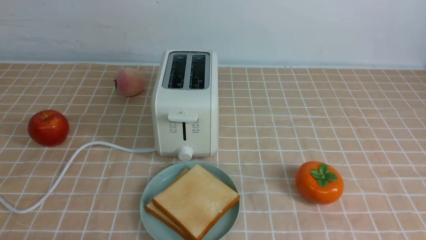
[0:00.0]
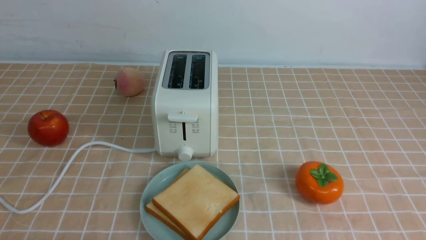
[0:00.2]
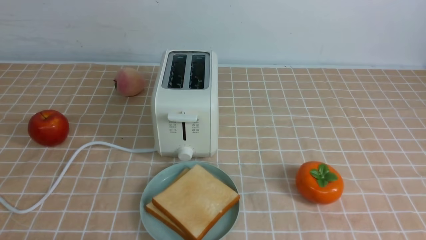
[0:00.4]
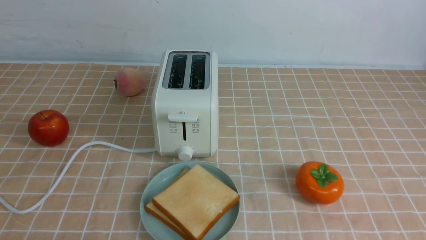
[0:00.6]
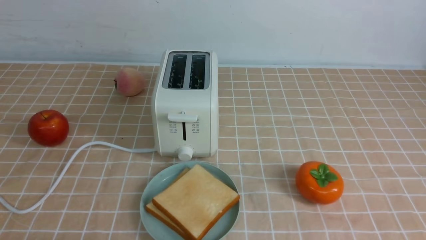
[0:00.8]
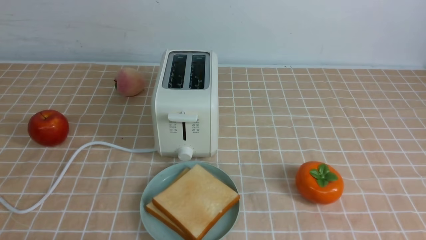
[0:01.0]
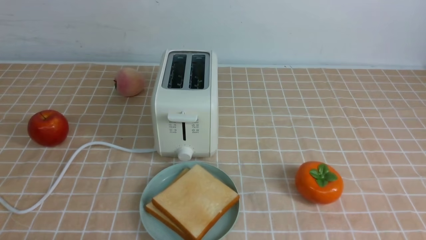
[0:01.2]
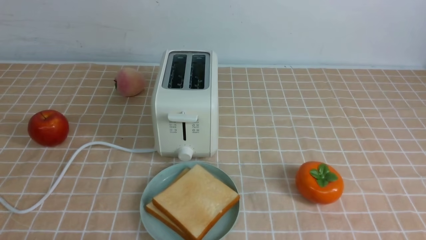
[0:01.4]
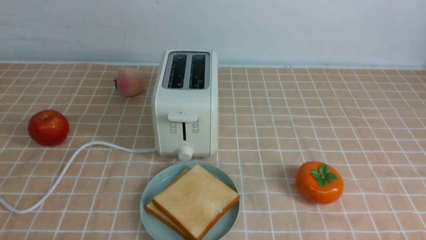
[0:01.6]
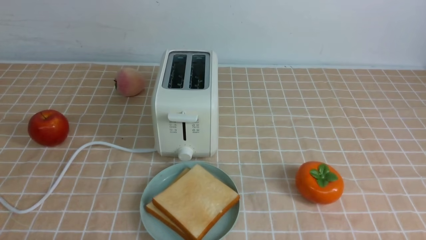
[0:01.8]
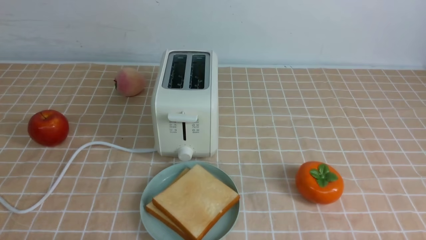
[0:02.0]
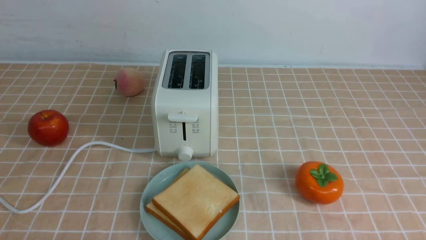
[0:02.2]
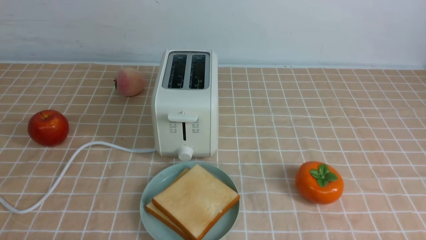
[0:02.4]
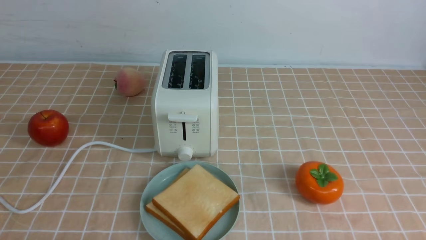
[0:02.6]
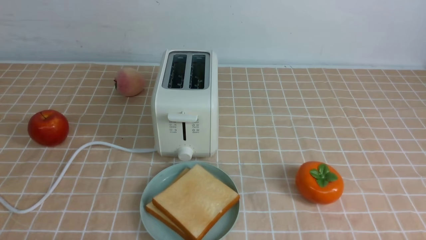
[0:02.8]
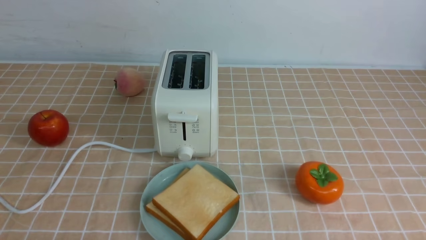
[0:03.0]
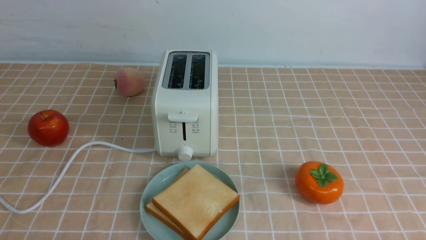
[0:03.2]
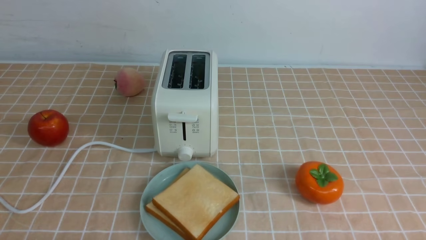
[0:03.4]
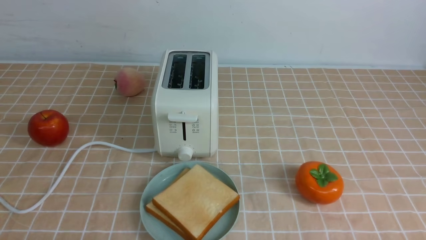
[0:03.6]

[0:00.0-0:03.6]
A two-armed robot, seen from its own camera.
Task of the whole recording: take toasted bread from bread machine on light coffee tablecloth place on plate.
0:01.8 to 0:03.6: Both grippers stay put.

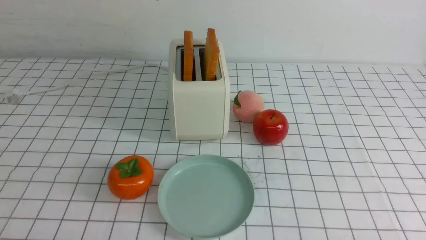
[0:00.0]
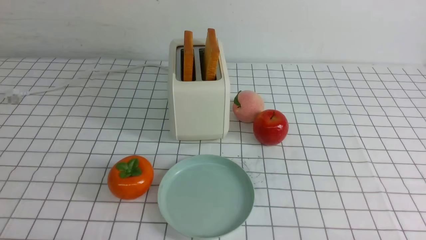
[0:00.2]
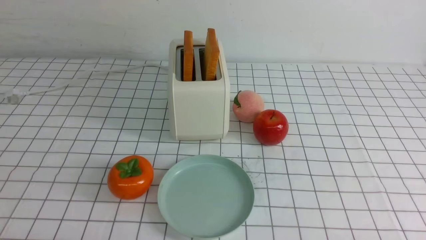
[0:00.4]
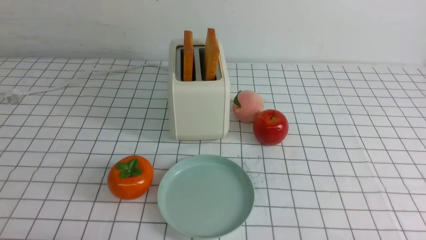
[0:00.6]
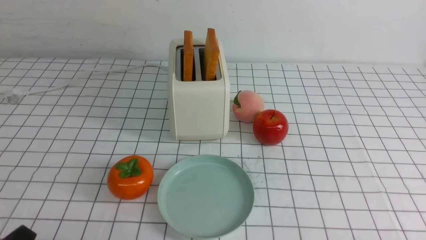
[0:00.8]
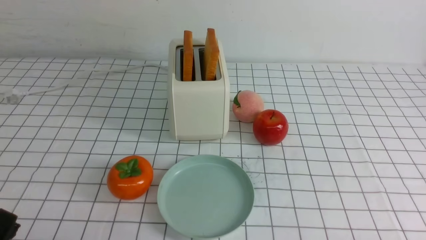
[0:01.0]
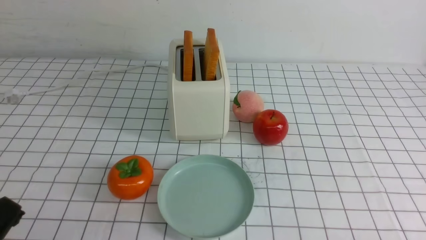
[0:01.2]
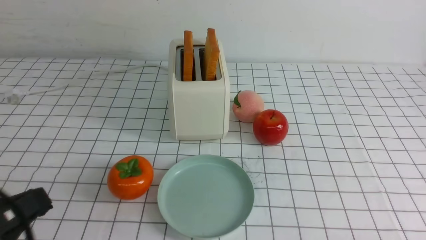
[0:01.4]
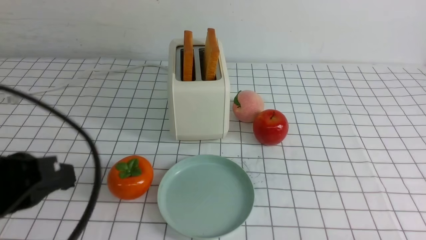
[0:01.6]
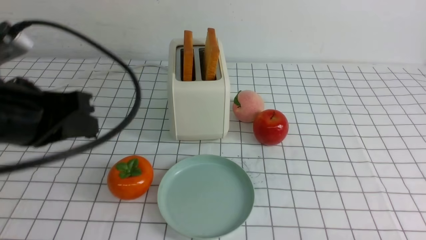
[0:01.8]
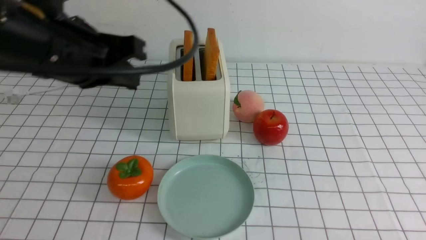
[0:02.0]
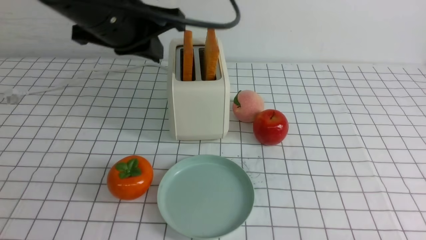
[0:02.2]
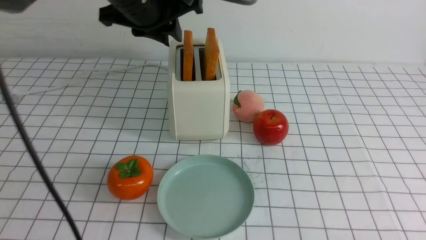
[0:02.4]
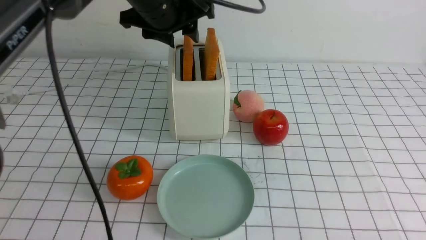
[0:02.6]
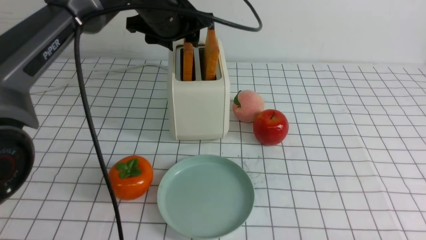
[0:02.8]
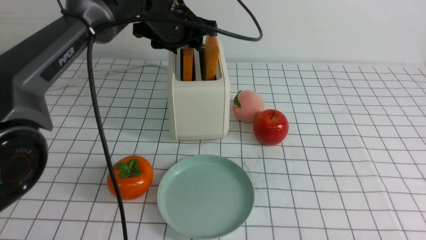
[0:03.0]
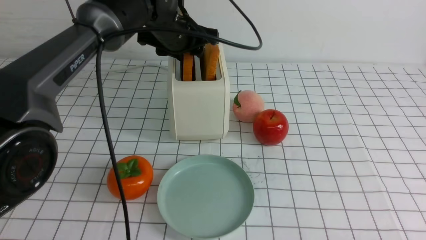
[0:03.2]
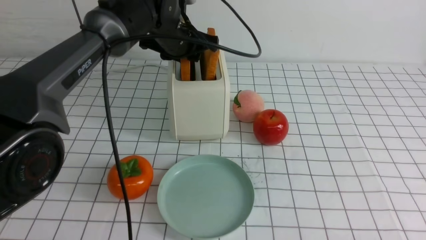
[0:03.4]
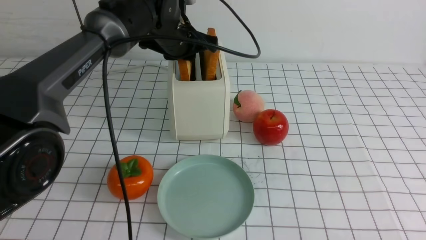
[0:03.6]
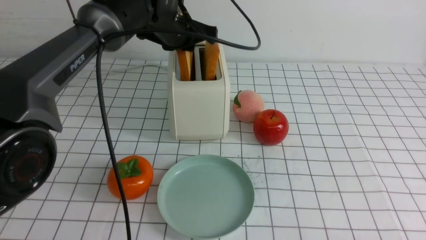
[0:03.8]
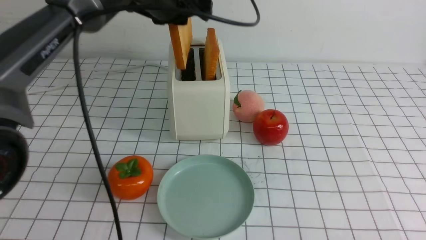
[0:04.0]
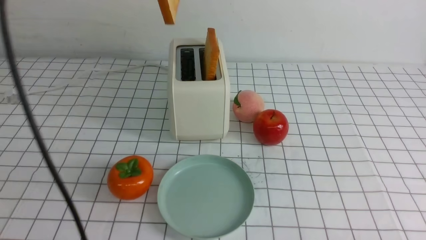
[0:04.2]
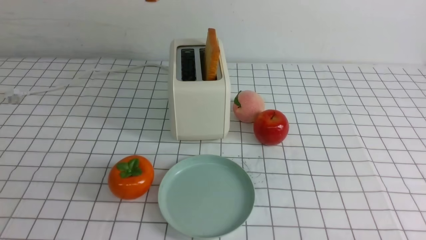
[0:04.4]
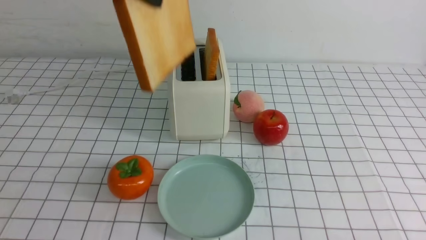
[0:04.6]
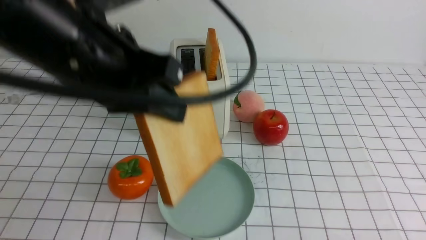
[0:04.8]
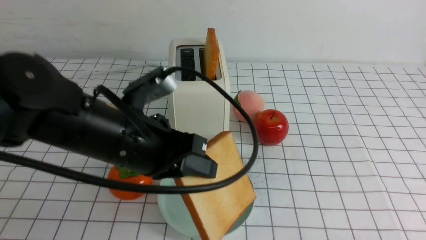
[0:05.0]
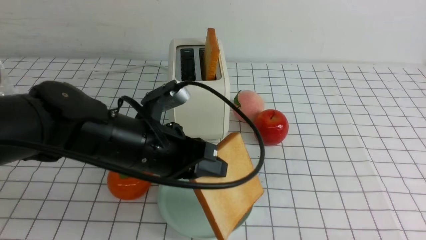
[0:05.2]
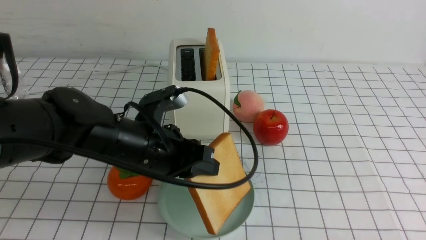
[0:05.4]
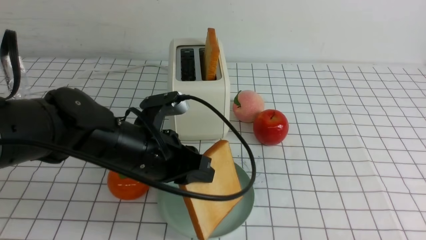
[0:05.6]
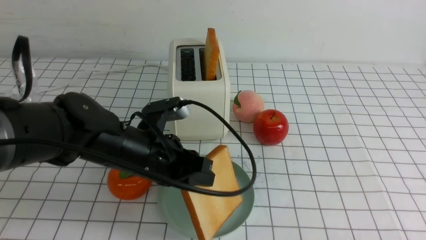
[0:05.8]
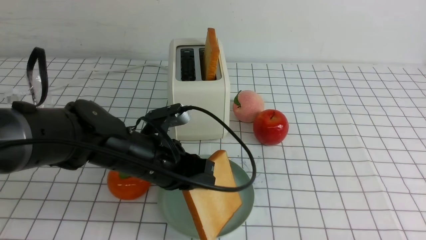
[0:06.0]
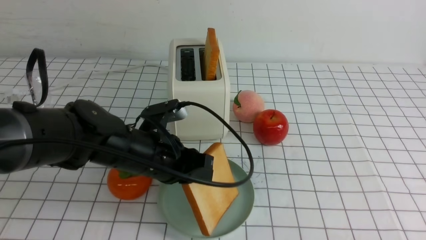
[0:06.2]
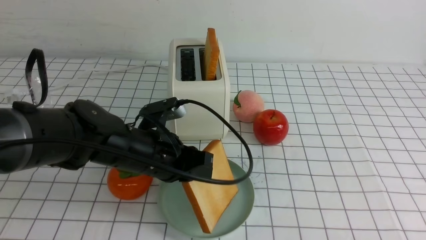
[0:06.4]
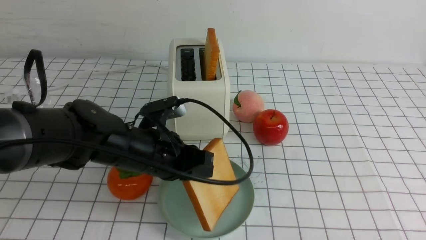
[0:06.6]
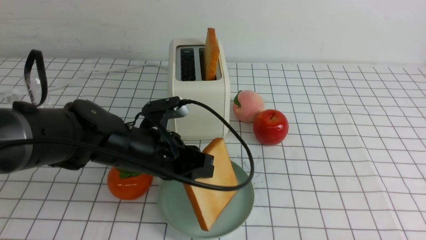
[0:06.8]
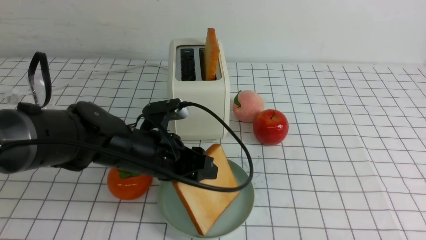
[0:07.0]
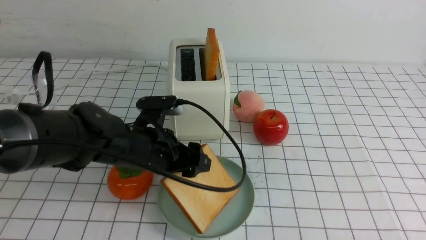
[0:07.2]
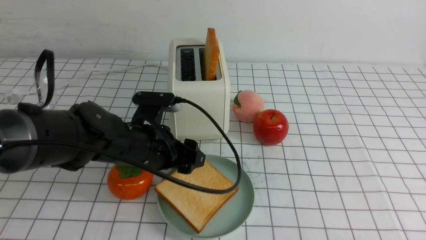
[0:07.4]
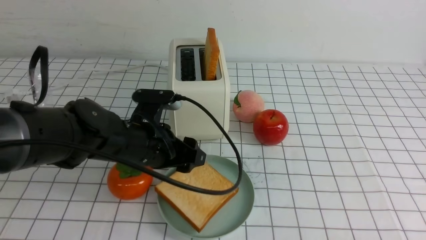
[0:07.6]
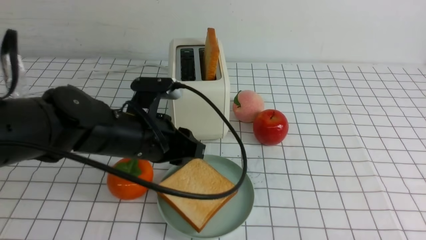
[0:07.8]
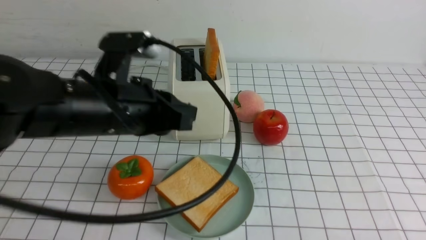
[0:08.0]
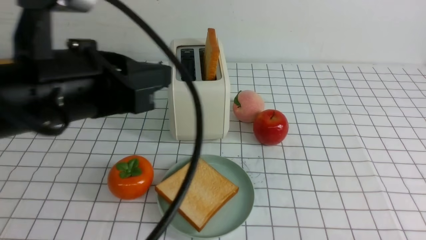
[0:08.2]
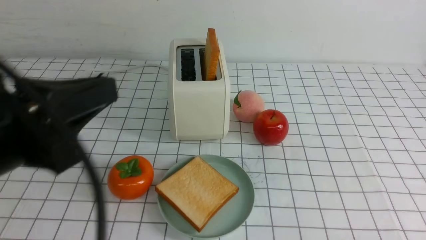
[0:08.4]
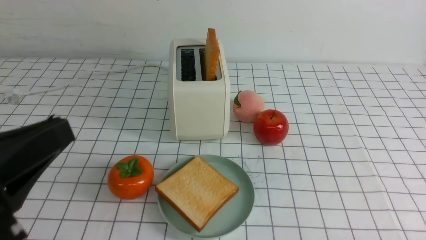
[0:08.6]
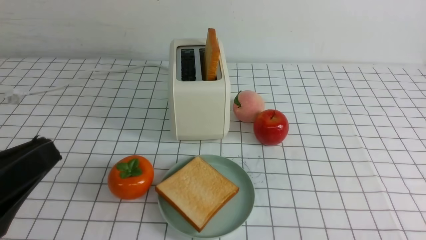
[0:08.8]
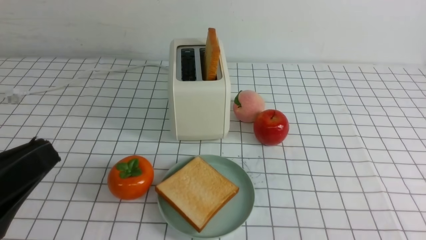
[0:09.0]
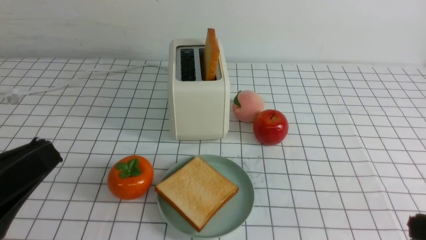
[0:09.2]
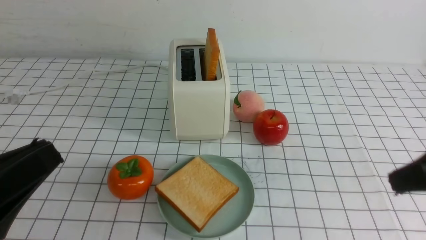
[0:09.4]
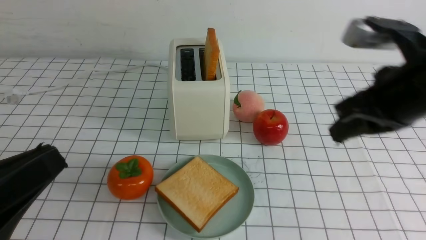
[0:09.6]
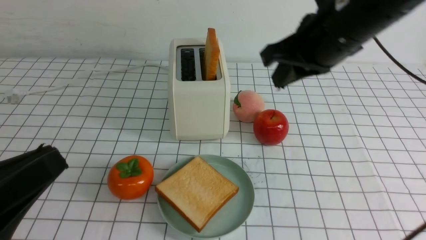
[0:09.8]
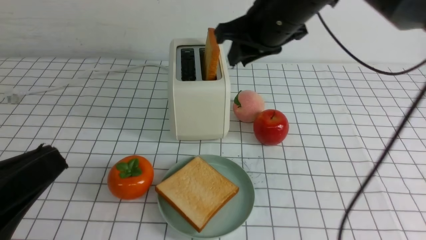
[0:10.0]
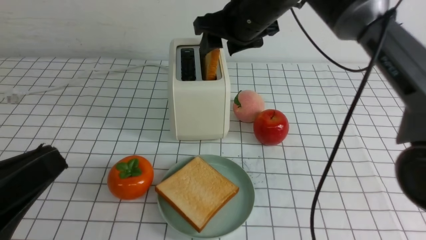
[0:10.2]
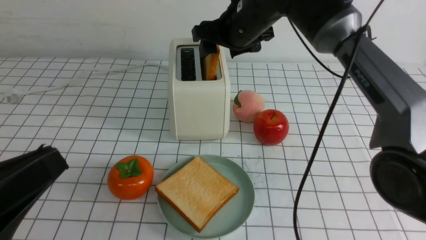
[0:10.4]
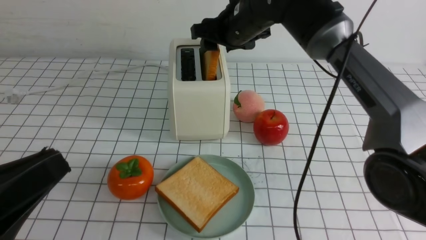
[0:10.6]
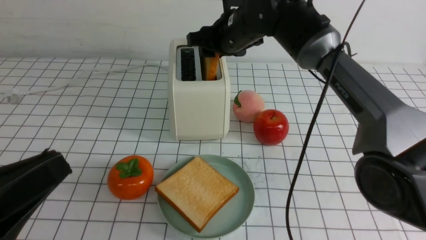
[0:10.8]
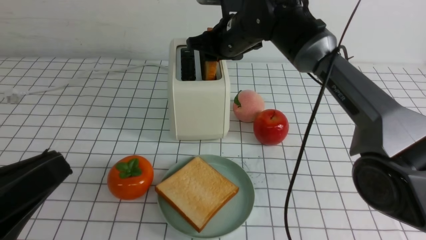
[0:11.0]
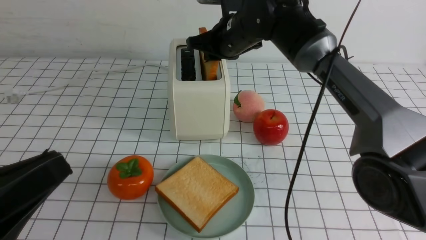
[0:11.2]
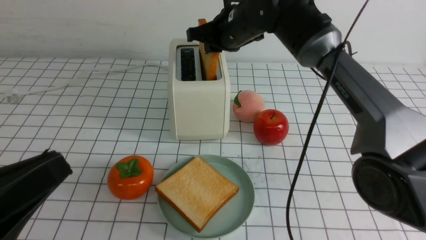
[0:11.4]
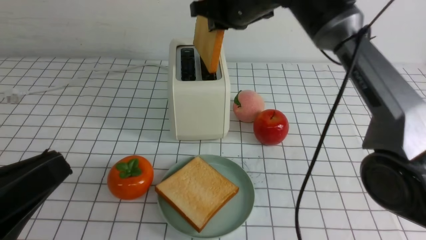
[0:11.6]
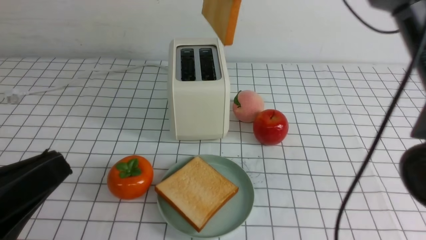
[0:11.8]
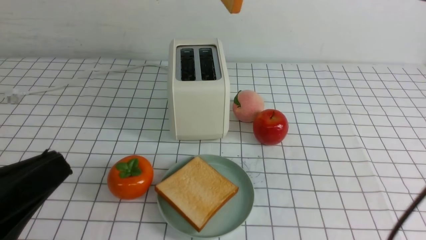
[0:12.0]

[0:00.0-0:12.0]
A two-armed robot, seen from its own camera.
Task of the whole recording: take toasted bread from bread machine on white checkered table place on plate.
Step, 0:00.0 to 0:03.8: use the left arm to take out a slice of bread.
Step, 0:04.0 to 0:07.6: use the left arm to put a slice of bread into the empty plate.
Step, 0:07.8 to 0:11.6: use the right arm to take out a slice of bread.
0:00.0 to 0:01.6: The left gripper moves upward and forward, some 20 cm, and closes.
0:01.6 to 0:03.0: The left gripper moves forward and to the right, roughly 35 cm, and opens.
0:03.0 to 0:04.4: The left gripper is displaced upward and backward by about 20 cm, and closes its fingers.
0:04.4 to 0:06.0: The left gripper goes roughly 30 cm downward.
0:06.0 to 0:07.6: The left gripper opens.
0:07.6 to 0:09.0: The right gripper goes roughly 10 cm upward, while the left gripper moves backward, to the left and upward, roughly 25 cm, and closes.
0:09.0 to 0:10.4: The right gripper shifts about 50 cm forward and to the left, and opens.
0:10.4 to 0:12.0: The right gripper heads upward and backward, covering roughly 20 cm, and closes its fingers.

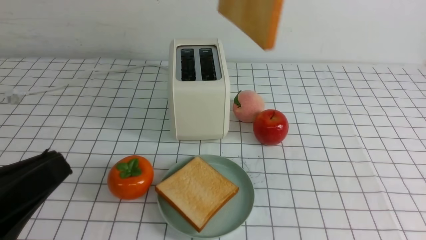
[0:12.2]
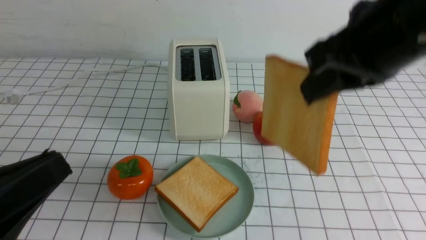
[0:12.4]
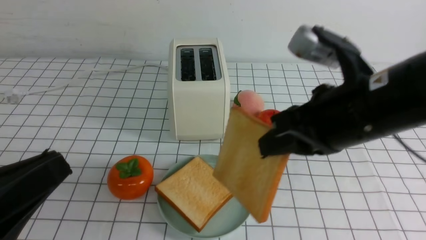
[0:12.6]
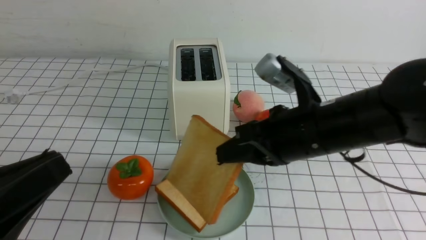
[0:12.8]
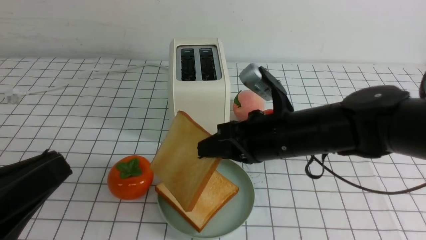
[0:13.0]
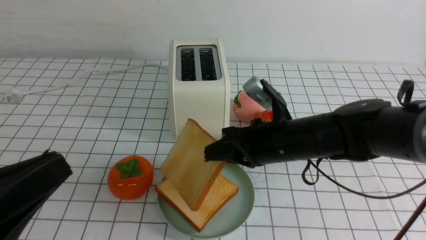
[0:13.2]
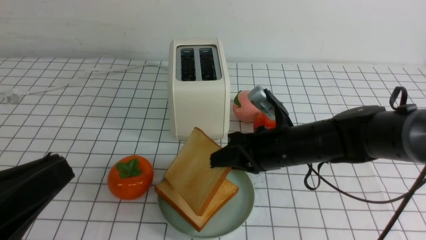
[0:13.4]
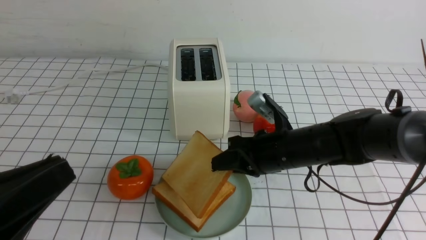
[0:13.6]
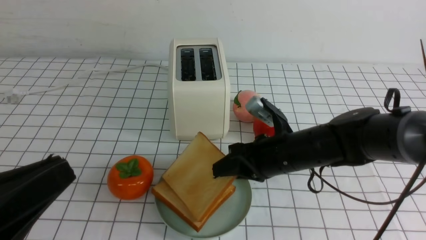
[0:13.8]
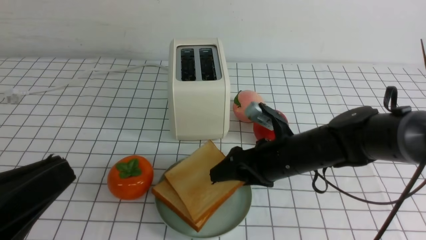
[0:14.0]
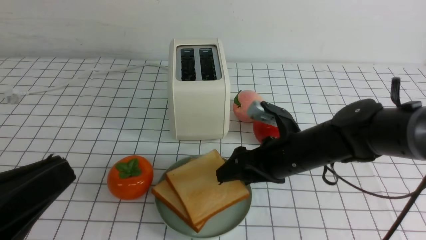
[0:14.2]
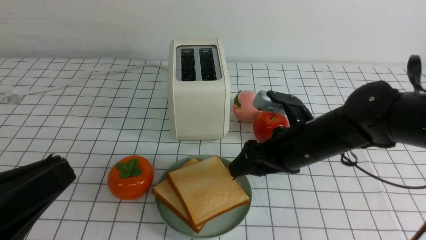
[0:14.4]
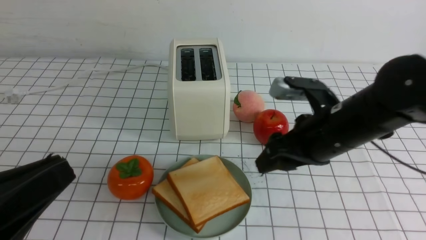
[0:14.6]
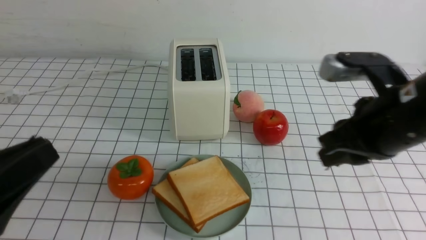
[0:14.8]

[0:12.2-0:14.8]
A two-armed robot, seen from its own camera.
Task of the whole recording: take toasted bread from bread machine on white checkered table place on plate.
Step, 0:12.2 to 0:14.6: use the right arm to put a slice of bread into the plate.
0:12.2 to 0:13.4: The right gripper goes about 30 cm downward.
0:13.4 to 0:14.8: The right gripper heads upward, backward and to the right, covering some 20 cm, and opens, then closes once more.
